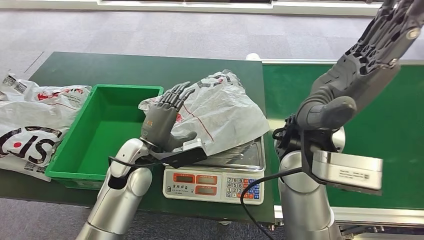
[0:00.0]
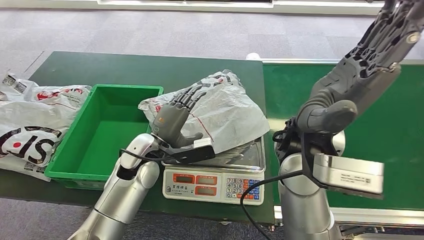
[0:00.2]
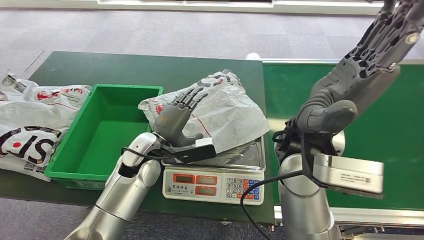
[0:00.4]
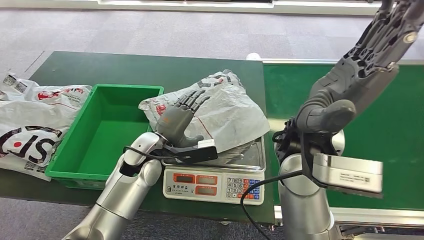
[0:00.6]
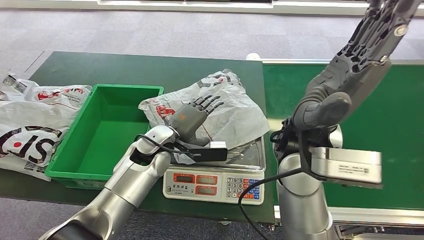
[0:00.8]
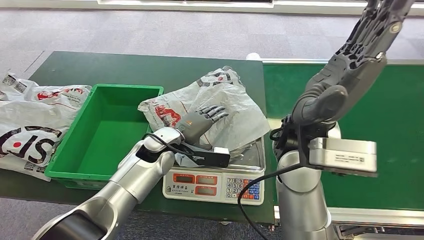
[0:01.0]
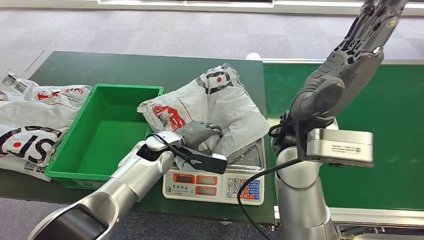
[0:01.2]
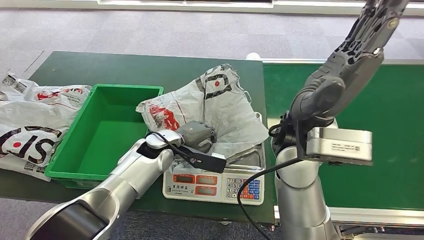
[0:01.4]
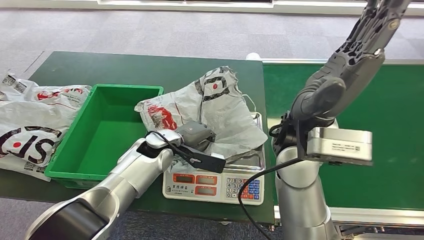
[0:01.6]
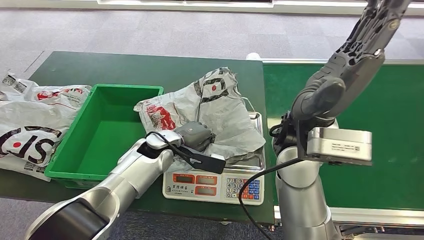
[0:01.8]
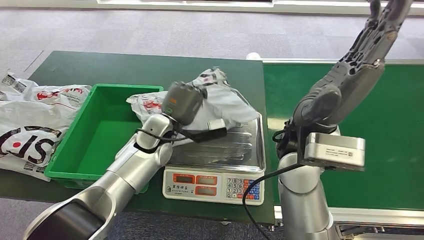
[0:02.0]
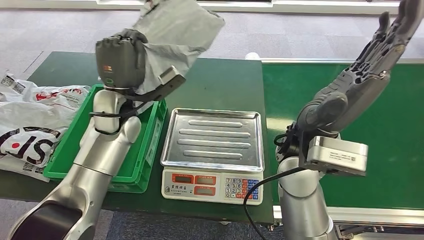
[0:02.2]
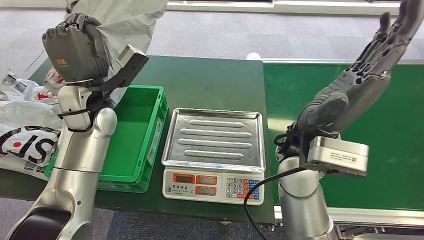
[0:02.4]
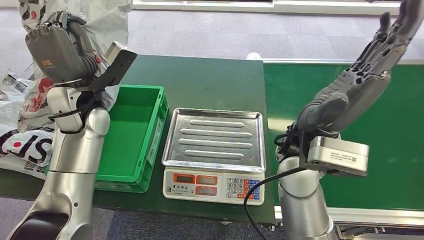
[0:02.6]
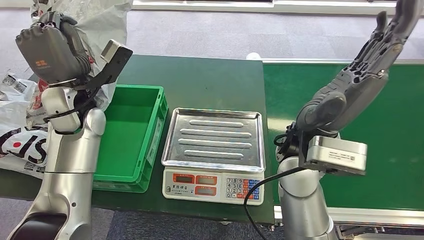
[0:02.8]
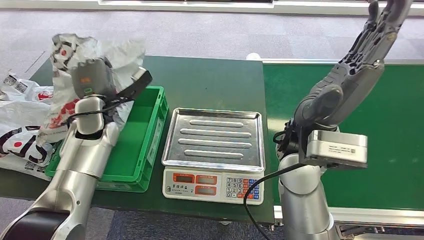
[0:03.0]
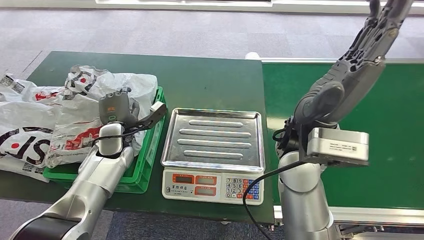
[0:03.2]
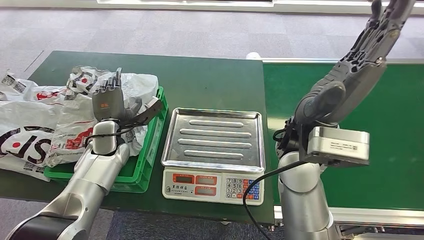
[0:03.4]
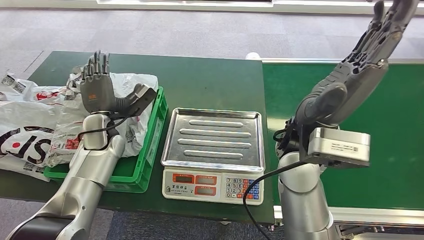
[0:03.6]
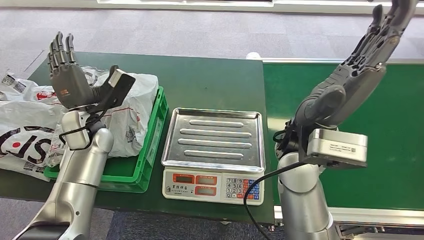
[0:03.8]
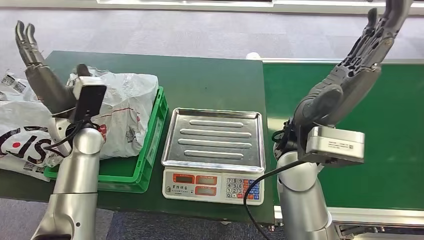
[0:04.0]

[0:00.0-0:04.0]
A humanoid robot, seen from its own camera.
Step, 0:00.0 to 0:02.4: Pick up the package from the inbound machine.
Step, 0:02.6 to 0:03.8: Place the package into the parcel locker.

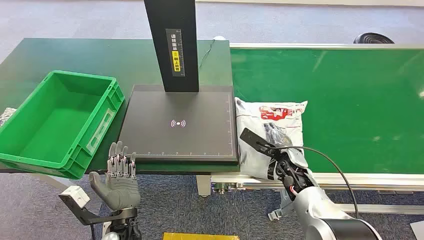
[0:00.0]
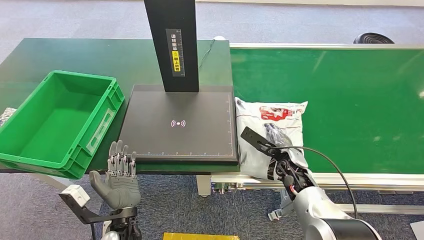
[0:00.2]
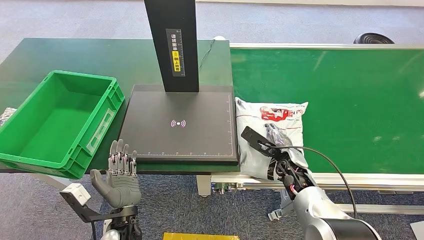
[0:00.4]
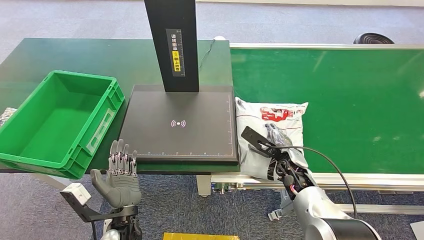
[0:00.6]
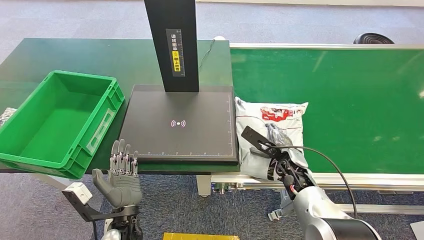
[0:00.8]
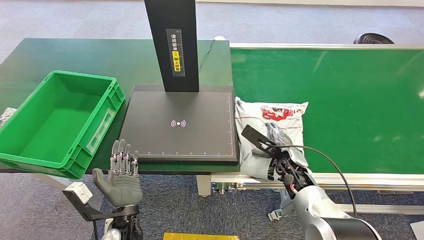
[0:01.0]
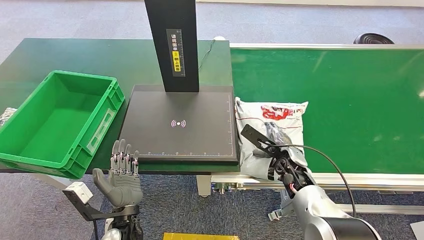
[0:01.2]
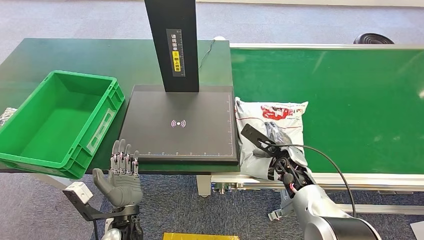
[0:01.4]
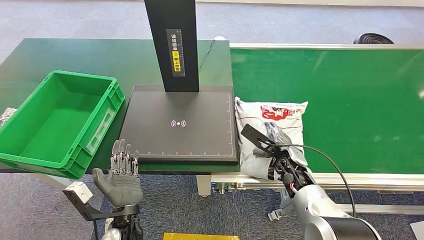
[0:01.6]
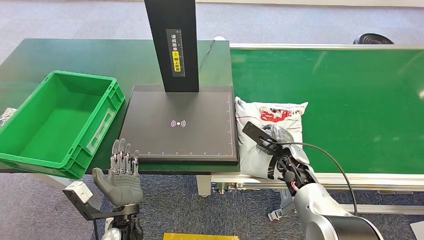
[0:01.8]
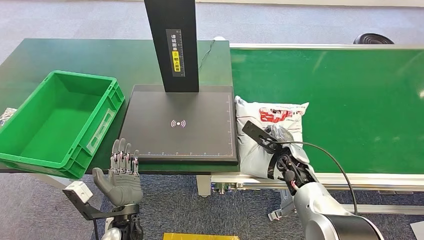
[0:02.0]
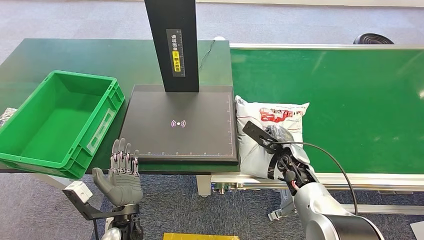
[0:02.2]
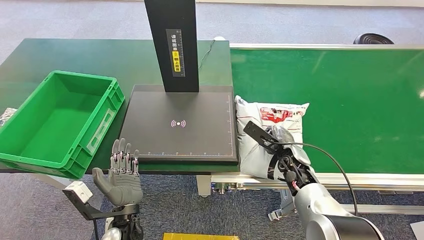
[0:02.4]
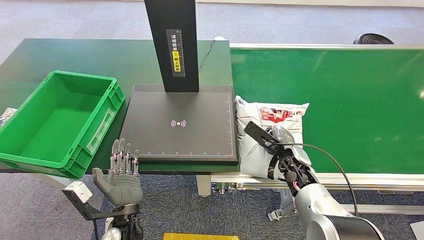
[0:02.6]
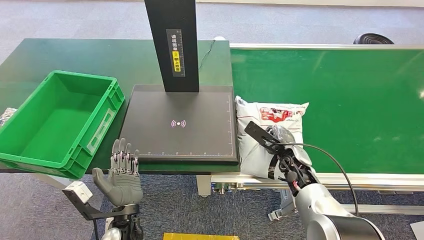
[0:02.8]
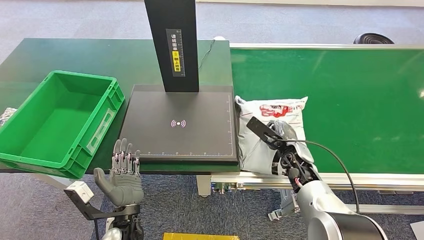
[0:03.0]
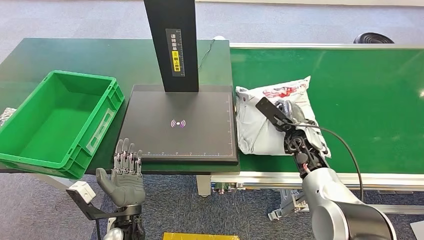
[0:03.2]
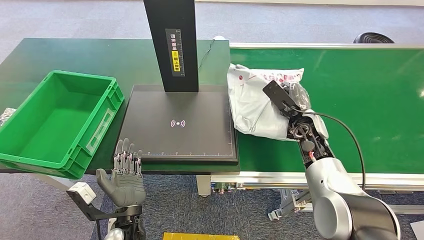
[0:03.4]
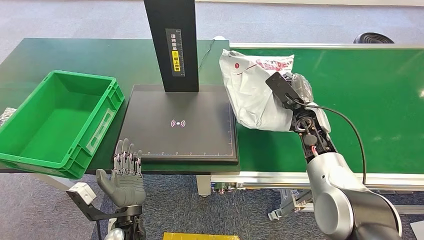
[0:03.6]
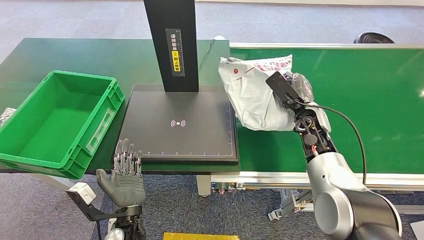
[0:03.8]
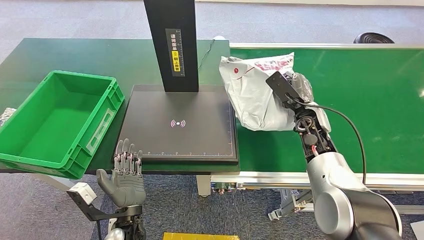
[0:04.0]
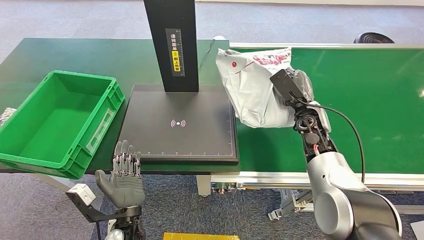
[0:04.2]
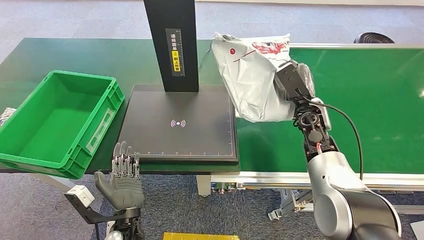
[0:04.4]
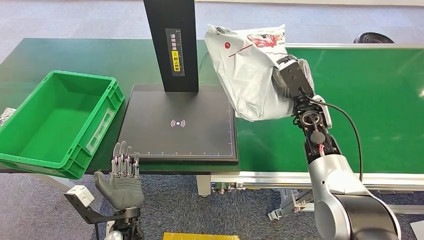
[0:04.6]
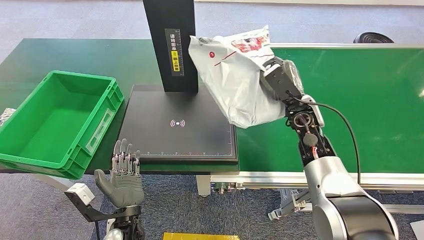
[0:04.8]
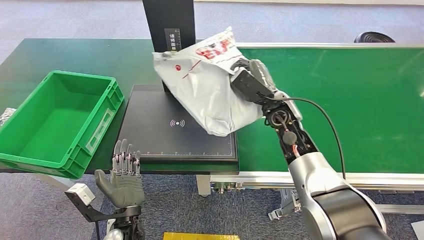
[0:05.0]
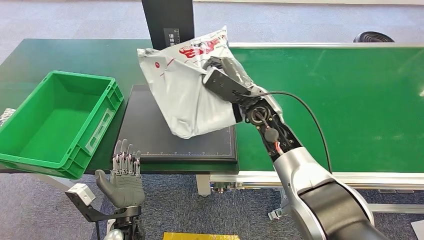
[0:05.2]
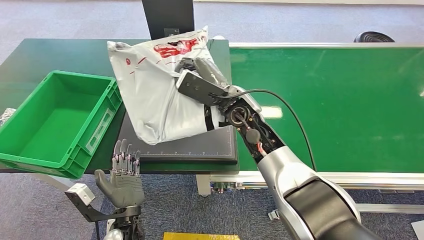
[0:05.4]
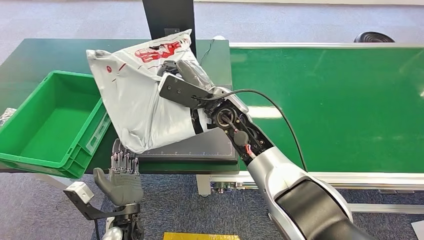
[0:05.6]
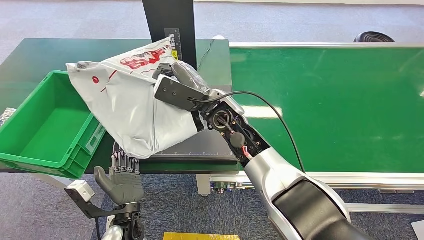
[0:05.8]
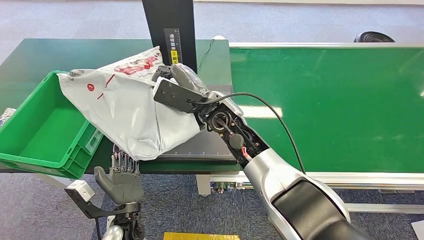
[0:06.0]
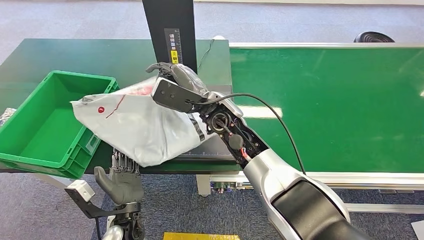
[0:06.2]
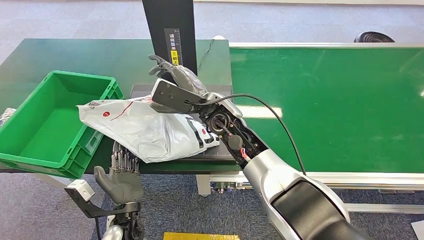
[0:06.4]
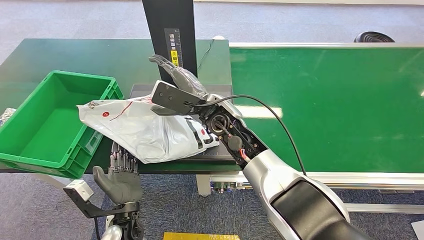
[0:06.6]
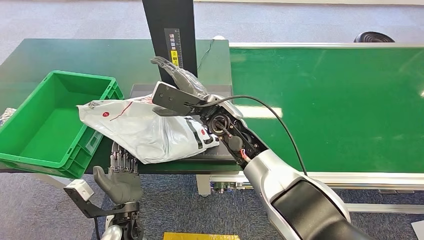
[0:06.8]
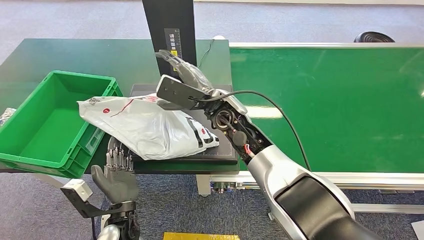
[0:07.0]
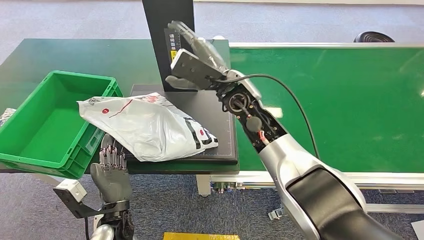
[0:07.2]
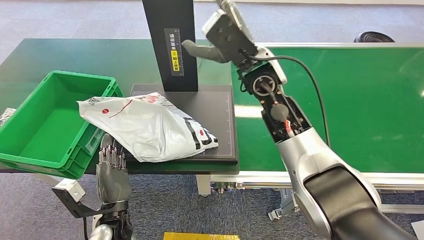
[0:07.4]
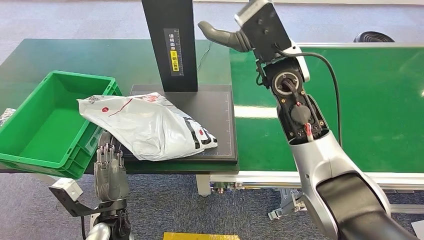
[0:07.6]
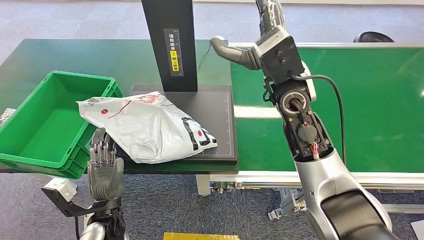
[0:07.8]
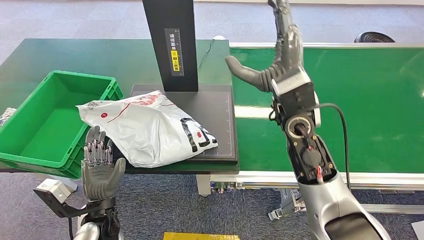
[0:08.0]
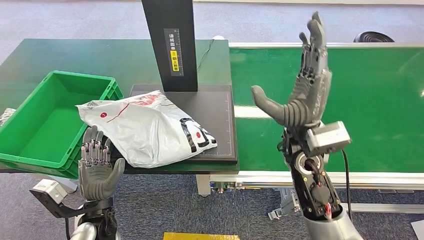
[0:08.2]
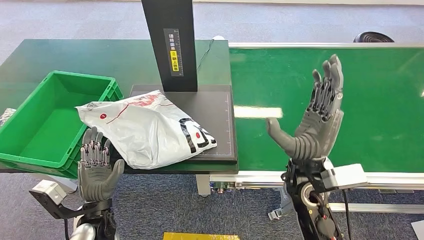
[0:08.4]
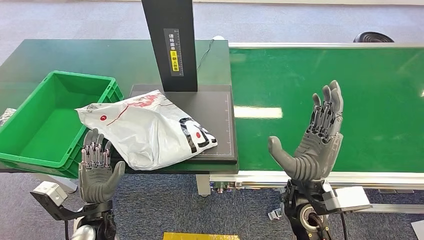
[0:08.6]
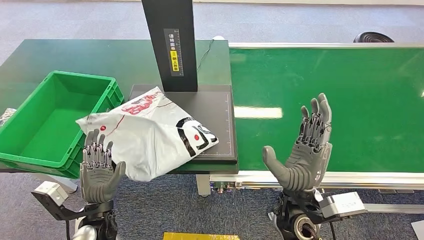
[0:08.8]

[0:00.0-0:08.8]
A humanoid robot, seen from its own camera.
Step, 0:00.0 to 0:04.4: Pick up the package from the conveyor belt.
Step, 0:04.8 to 0:08.8: Place the package onto the inbound machine.
0:01.4 to 0:03.0: The hands stay close to where they were, moving slightly.
0:03.0 to 0:04.4: The right hand travels upward and forward by approximately 15 cm.

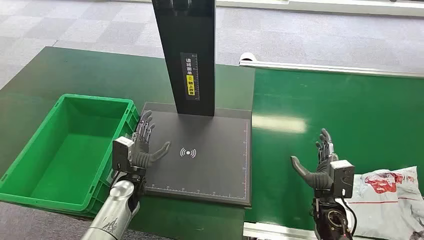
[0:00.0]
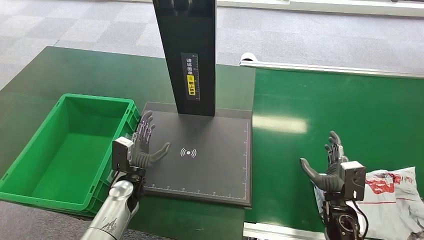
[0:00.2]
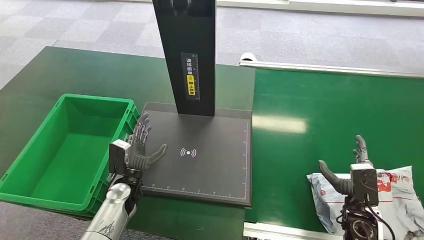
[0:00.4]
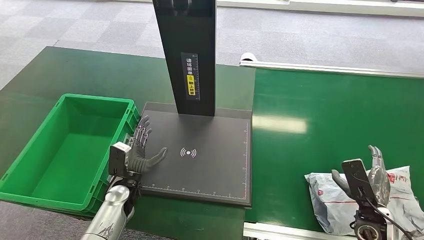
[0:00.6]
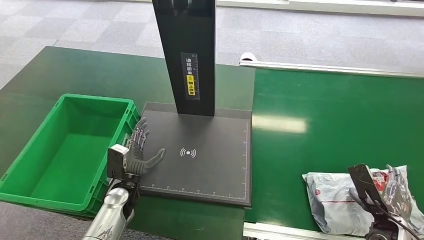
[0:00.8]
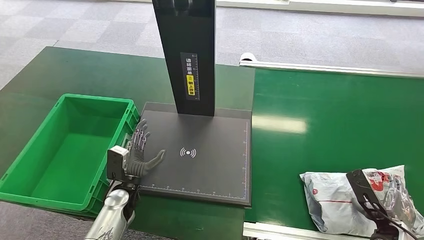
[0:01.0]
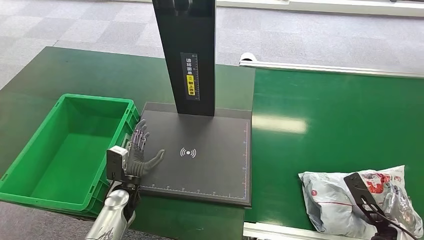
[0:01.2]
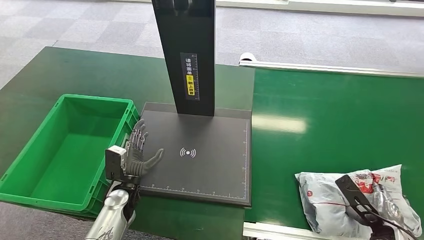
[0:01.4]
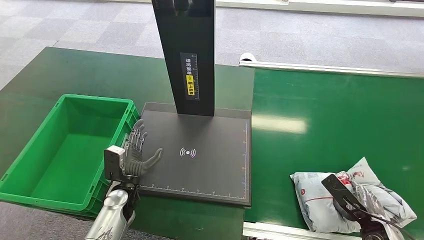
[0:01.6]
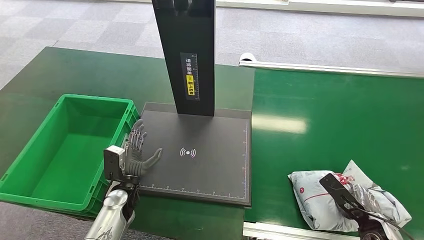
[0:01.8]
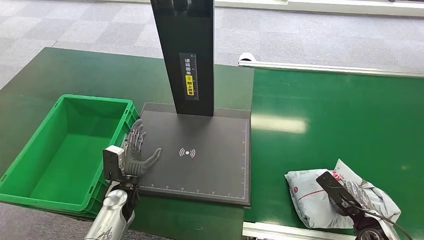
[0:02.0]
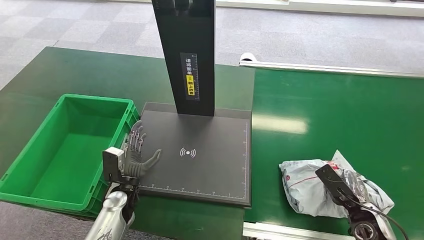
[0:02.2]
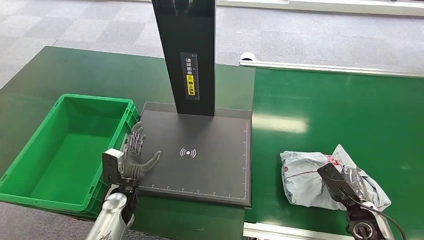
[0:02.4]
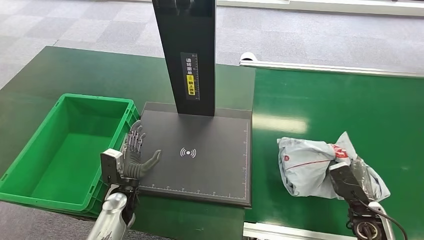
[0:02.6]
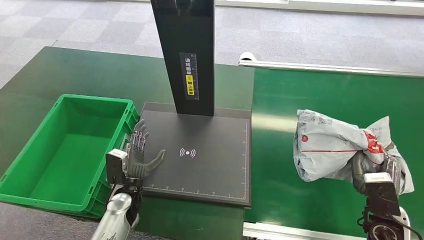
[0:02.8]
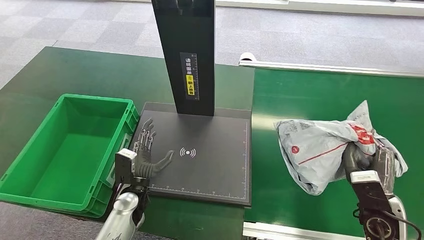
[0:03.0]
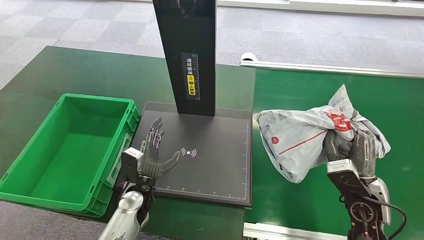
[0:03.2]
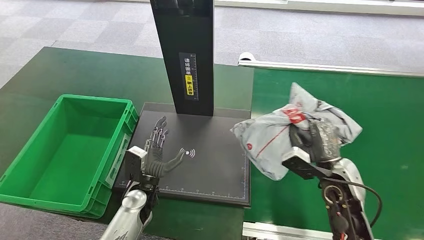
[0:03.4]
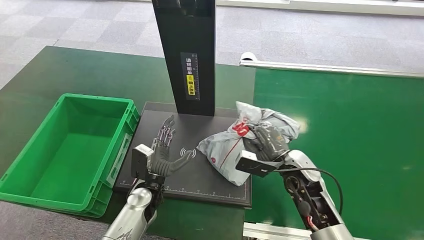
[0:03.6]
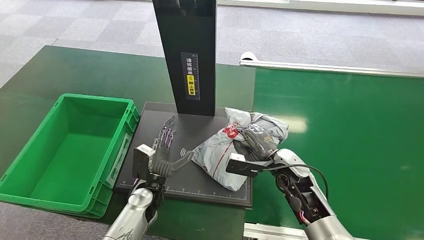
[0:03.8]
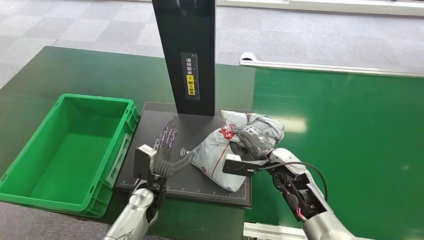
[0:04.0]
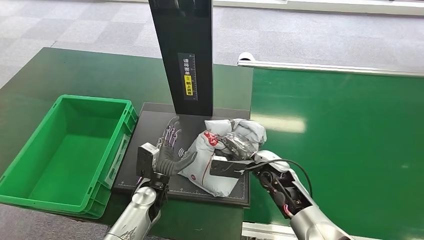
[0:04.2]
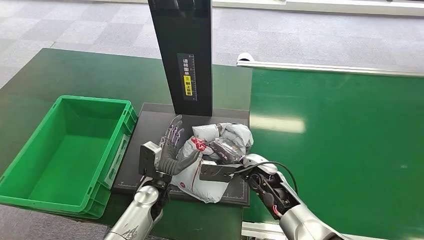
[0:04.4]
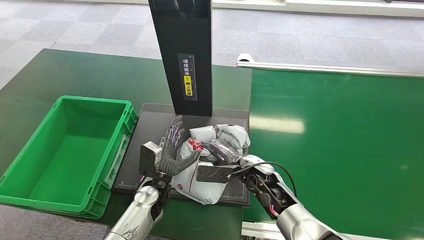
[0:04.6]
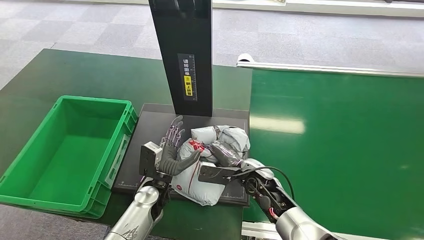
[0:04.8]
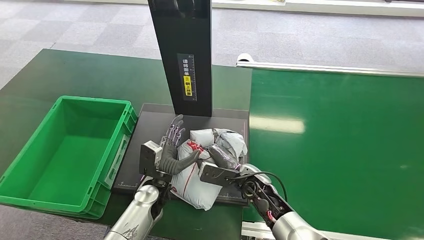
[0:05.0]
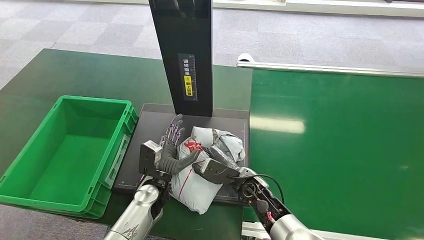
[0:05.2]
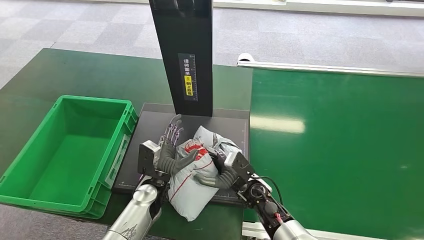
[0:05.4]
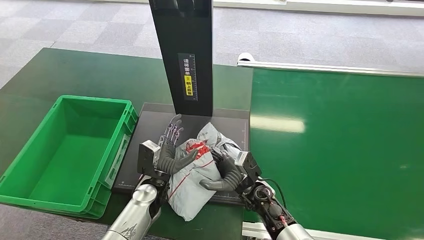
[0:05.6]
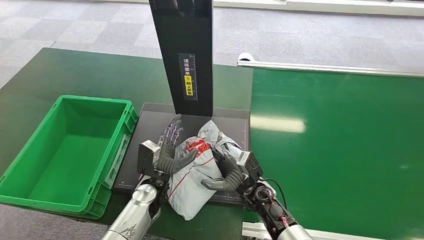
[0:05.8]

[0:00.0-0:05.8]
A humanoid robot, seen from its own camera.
Step, 0:00.0 to 0:02.6: Pick up the package from the conveyor belt.
0:01.4 to 0:02.8: The right hand changes place by roughly 5 cm.
0:04.4 to 0:05.8: The right hand moves about 5 cm.
